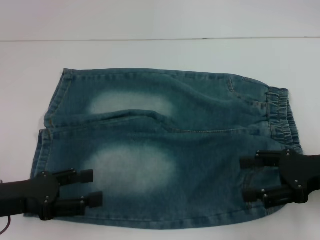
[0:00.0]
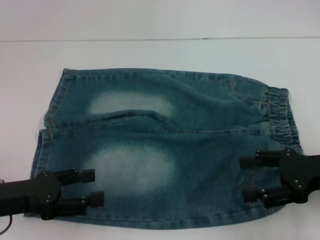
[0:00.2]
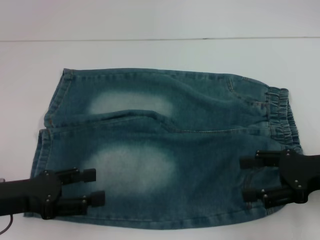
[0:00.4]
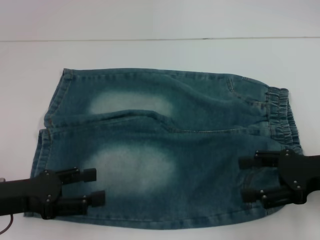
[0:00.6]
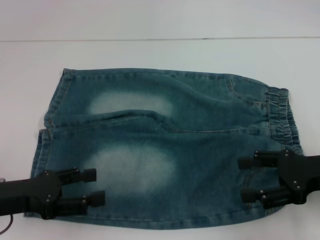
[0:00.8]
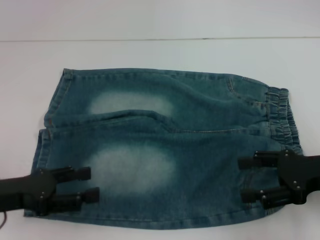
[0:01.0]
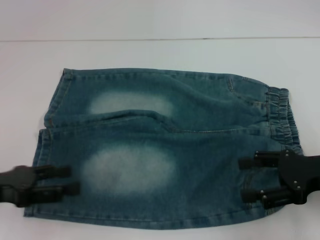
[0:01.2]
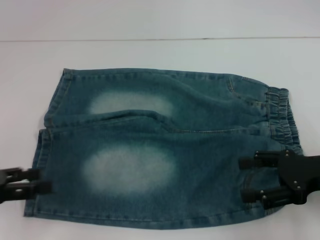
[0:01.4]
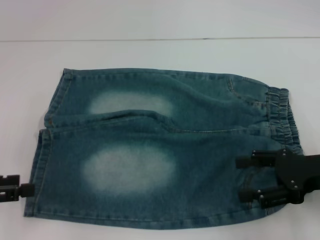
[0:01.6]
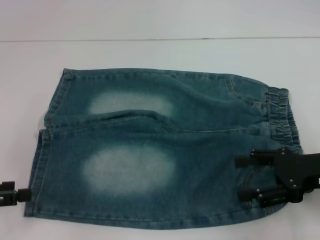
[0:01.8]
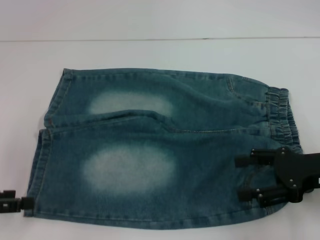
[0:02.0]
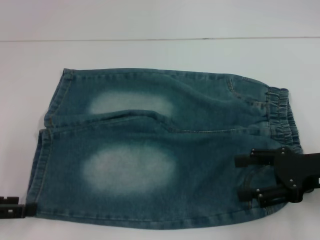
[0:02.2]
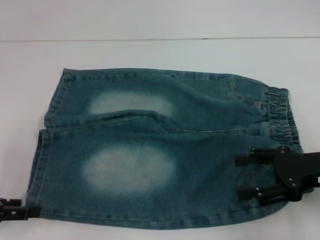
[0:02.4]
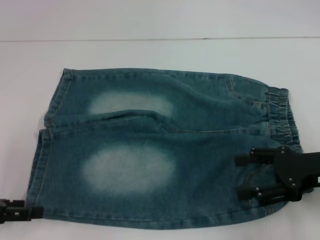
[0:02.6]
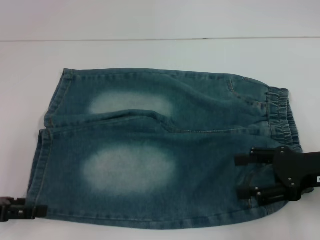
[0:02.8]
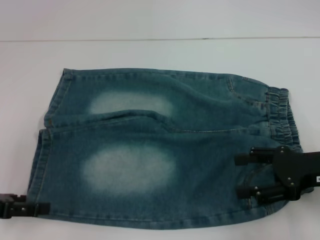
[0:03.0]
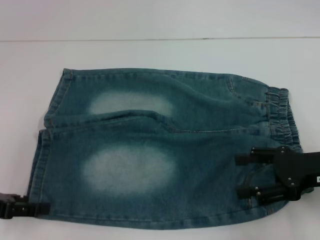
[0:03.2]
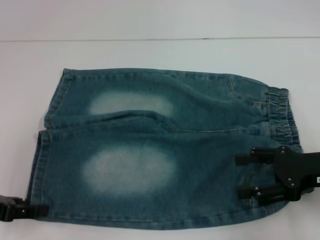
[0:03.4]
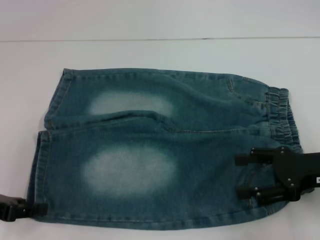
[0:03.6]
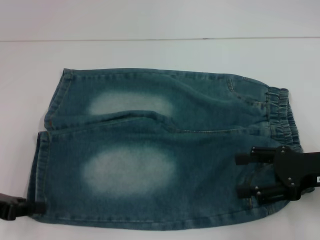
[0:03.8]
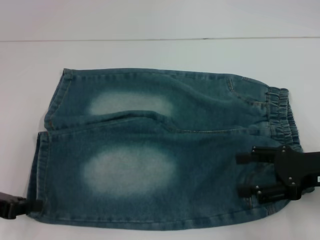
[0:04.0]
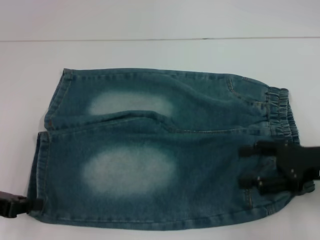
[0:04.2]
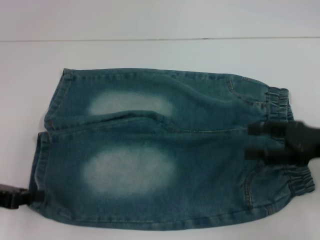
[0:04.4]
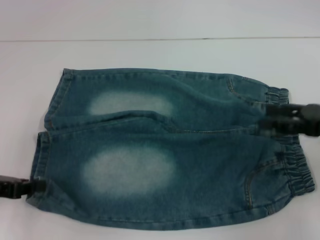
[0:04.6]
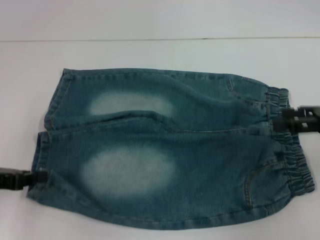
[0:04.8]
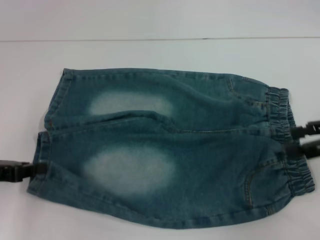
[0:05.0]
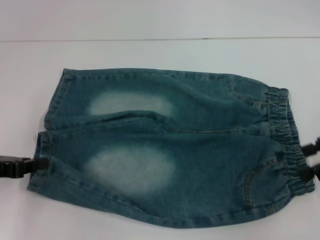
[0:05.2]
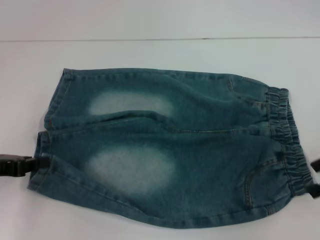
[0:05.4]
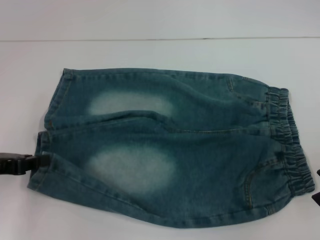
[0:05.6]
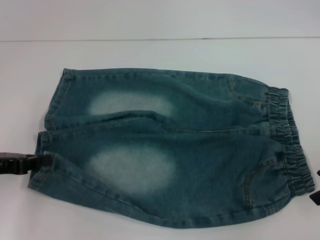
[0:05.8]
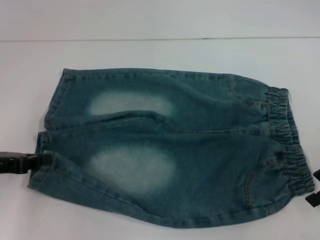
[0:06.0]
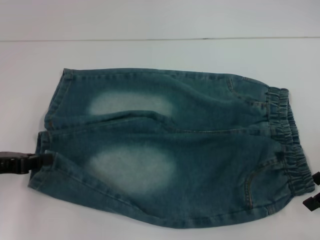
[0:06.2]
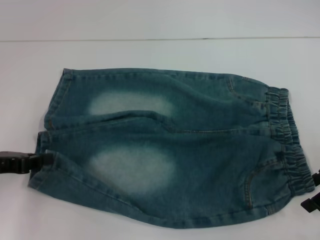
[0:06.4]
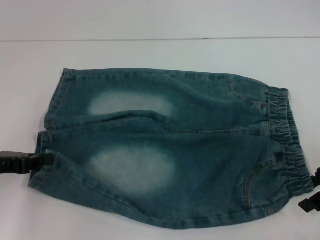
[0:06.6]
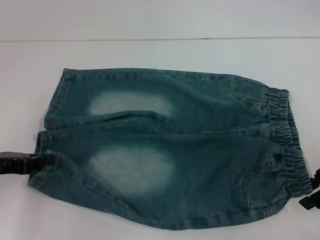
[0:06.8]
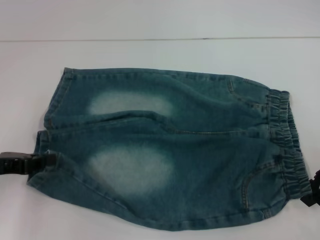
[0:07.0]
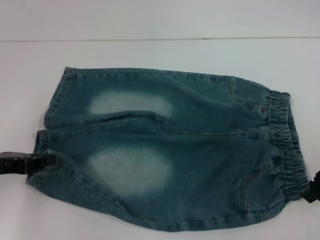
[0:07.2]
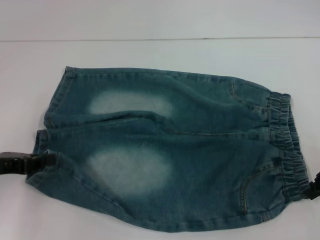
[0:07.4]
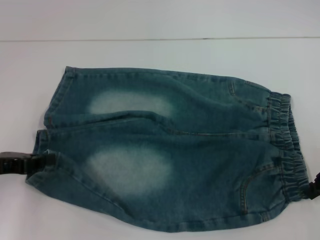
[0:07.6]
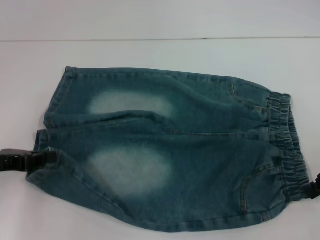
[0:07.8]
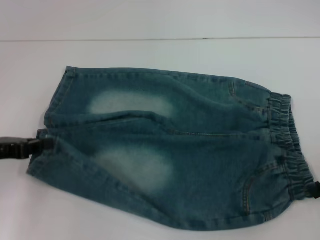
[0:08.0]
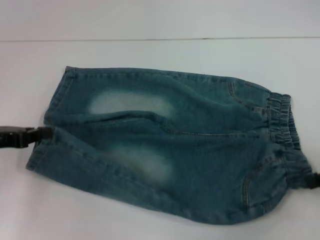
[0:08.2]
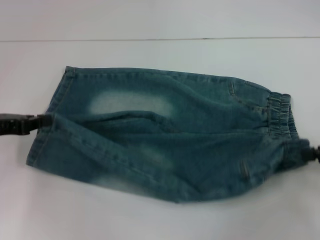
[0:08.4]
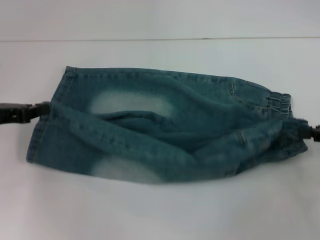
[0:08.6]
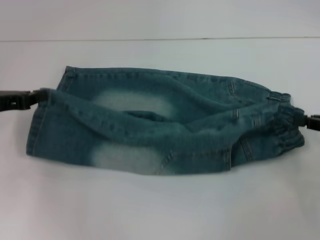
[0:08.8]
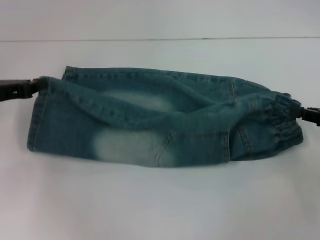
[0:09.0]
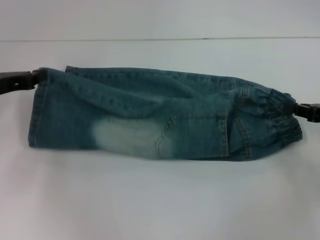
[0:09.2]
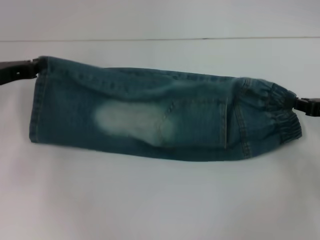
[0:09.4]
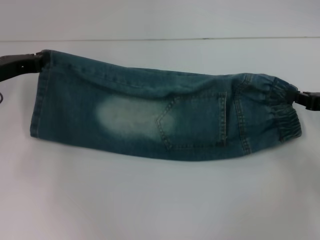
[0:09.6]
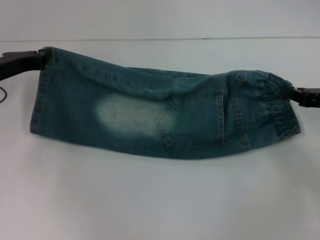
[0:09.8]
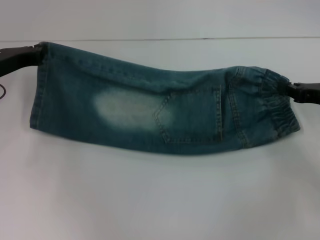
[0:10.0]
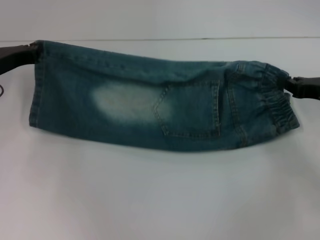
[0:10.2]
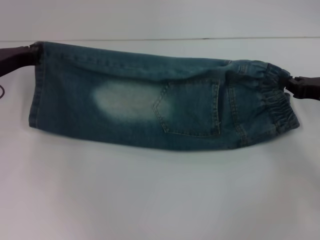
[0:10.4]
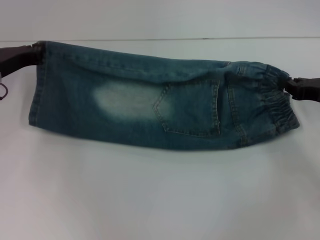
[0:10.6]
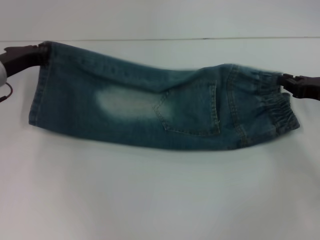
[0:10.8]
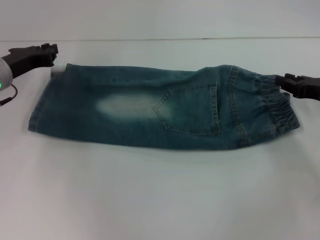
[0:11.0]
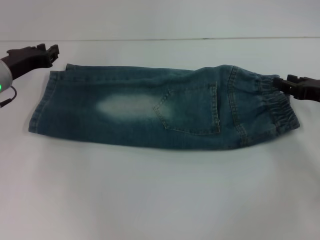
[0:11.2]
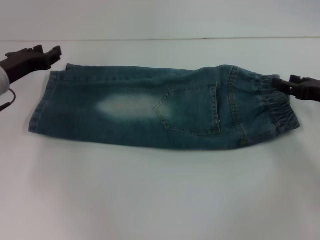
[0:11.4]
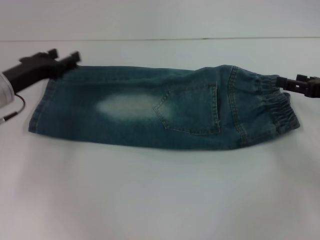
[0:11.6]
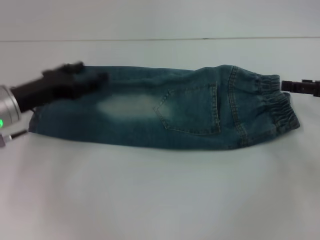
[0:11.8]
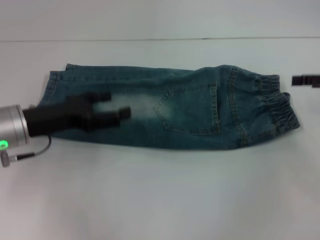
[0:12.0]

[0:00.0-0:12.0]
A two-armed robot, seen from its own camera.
Step, 0.0 to 3.6 s: Grab the lower left pant leg with your left hand.
Step, 4.0 to 7.8 s: Hold the lower right waistband with your right hand.
Step, 8.0 to 11.0 s: Fold upward with your right hand.
0.0 to 1.6 s: The left gripper goes roughly 5 cm to the left.
1.6 to 3.0 s: There are only small adjustments of the grippers.
3.0 to 4.4 s: The left gripper closes.
4.4 to 6.0 s: The right gripper moves some 5 cm.
6.0 to 7.6 s: The right gripper closes.
7.6 to 9.0 s: The right gripper changes place by approximately 5 cm. Meanwhile the left gripper goes some 10 cm forward.
9.0 to 10.4 s: The left gripper is displaced forward by roughly 5 cm. Meanwhile the right gripper moves some 5 cm.
10.4 to 12.0 s: The right gripper travels upward by some 5 cm, and opens up. The left gripper goes roughly 10 cm backward and to the right, and opens up.

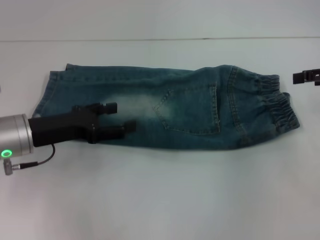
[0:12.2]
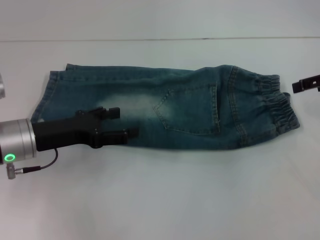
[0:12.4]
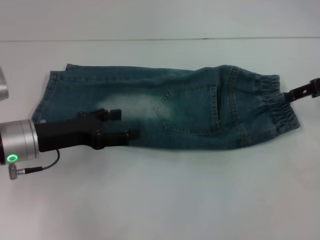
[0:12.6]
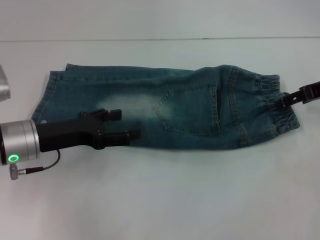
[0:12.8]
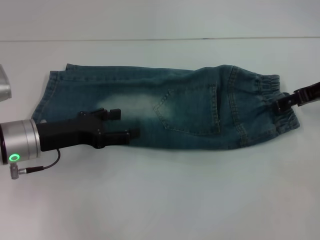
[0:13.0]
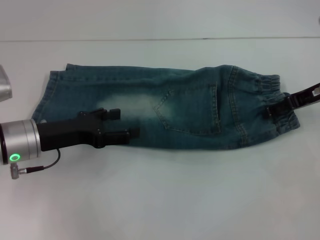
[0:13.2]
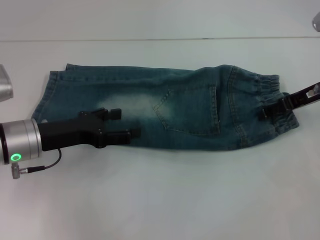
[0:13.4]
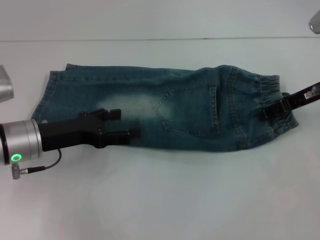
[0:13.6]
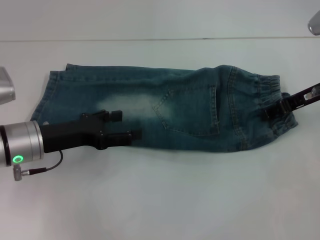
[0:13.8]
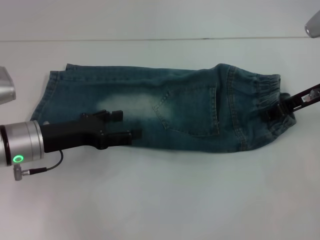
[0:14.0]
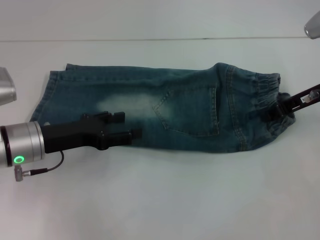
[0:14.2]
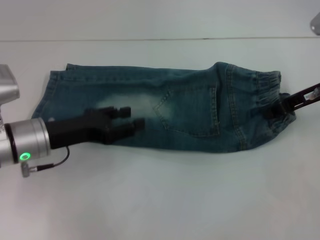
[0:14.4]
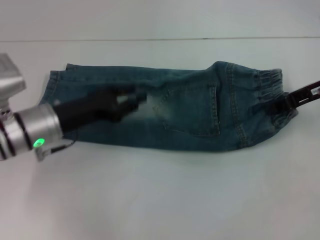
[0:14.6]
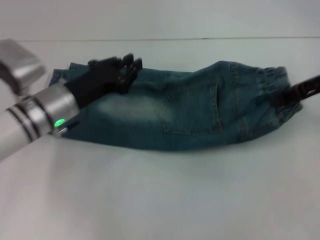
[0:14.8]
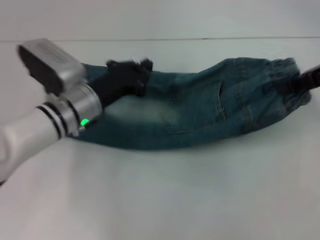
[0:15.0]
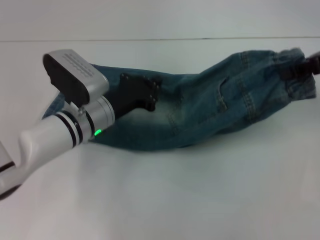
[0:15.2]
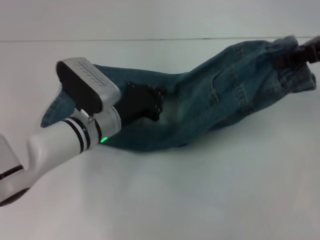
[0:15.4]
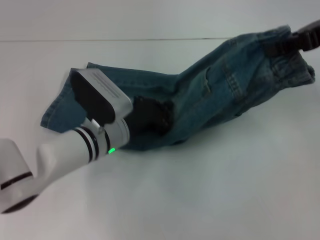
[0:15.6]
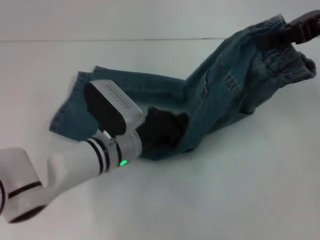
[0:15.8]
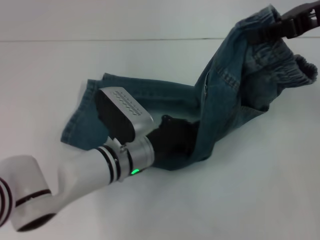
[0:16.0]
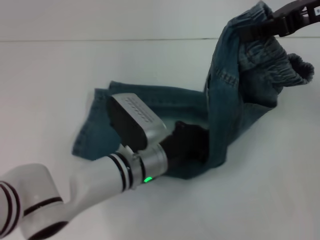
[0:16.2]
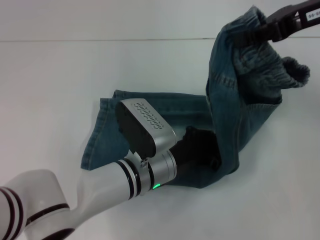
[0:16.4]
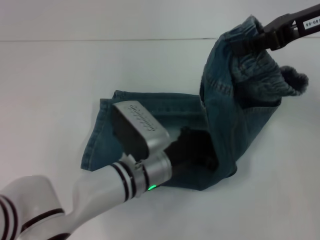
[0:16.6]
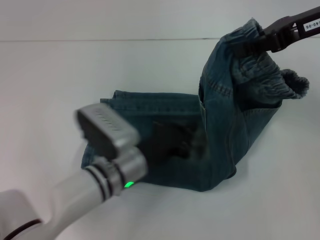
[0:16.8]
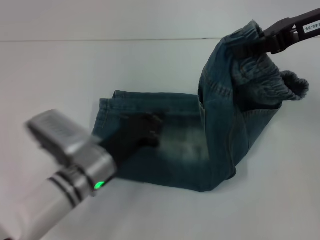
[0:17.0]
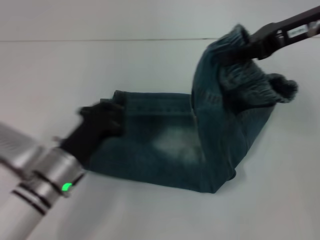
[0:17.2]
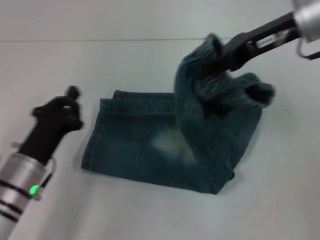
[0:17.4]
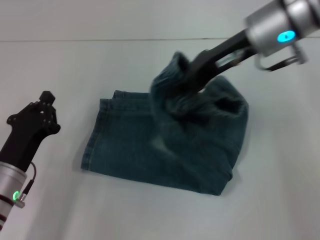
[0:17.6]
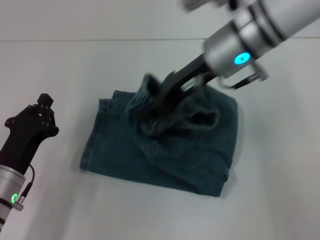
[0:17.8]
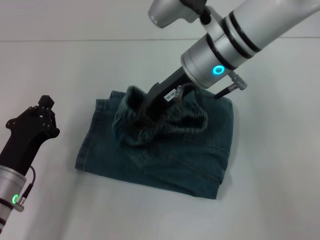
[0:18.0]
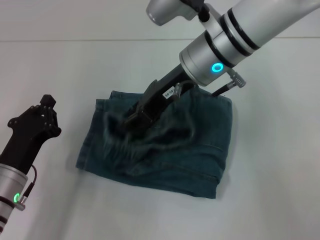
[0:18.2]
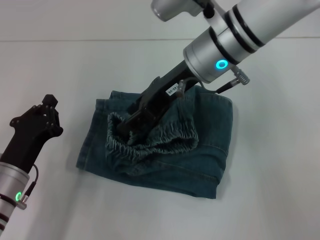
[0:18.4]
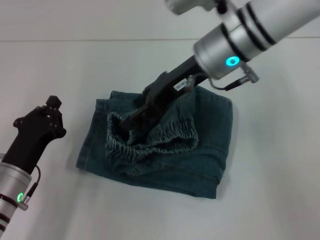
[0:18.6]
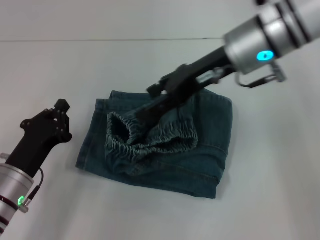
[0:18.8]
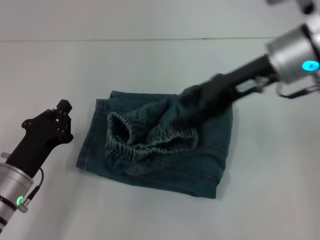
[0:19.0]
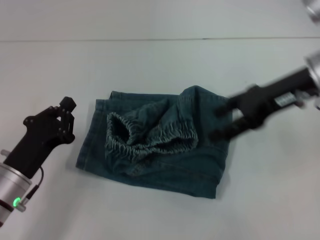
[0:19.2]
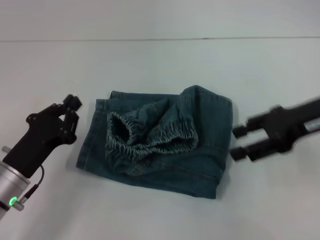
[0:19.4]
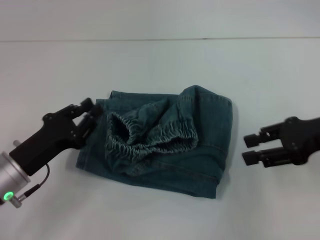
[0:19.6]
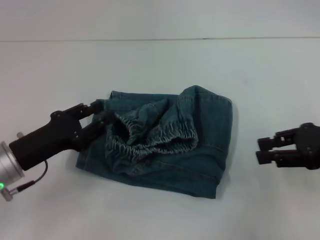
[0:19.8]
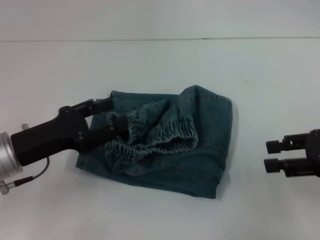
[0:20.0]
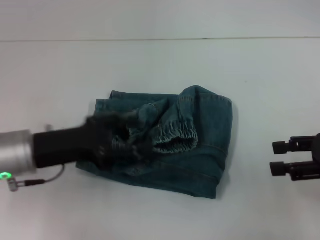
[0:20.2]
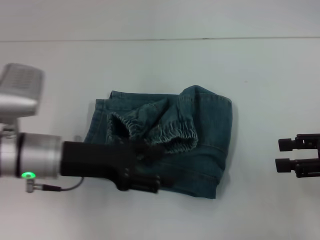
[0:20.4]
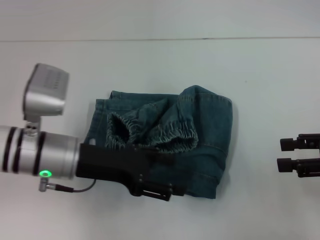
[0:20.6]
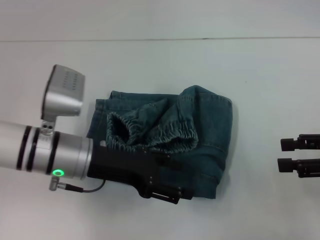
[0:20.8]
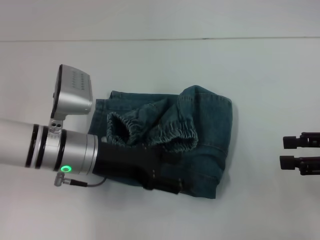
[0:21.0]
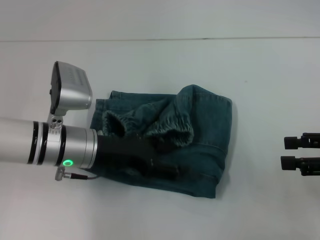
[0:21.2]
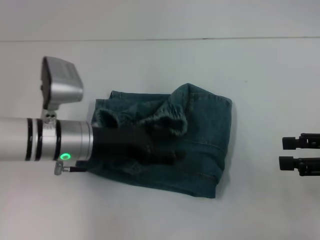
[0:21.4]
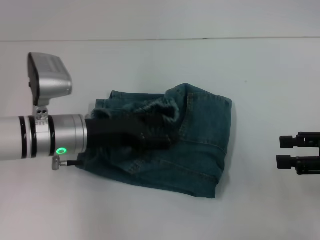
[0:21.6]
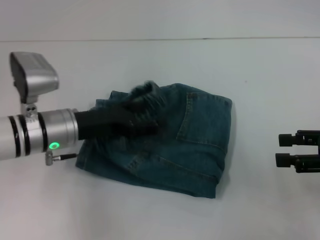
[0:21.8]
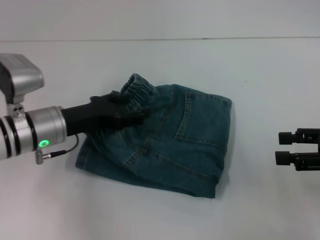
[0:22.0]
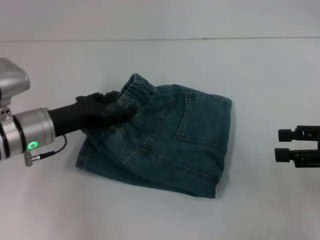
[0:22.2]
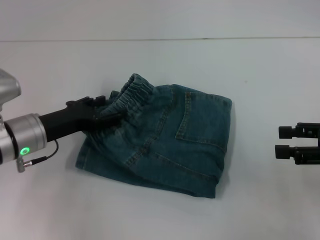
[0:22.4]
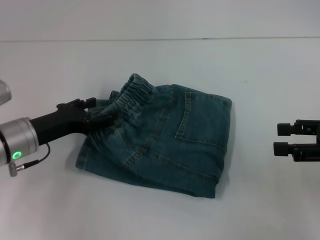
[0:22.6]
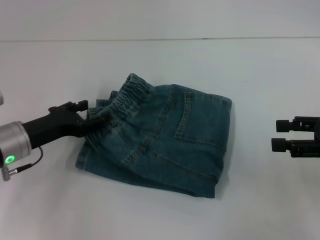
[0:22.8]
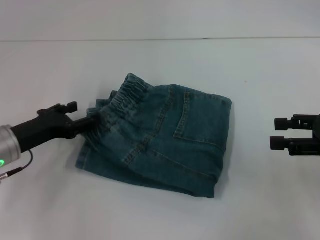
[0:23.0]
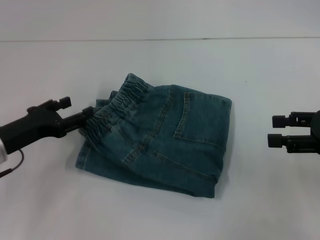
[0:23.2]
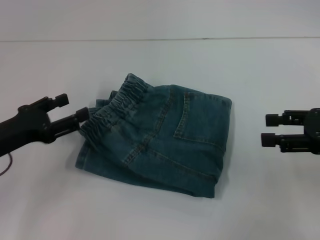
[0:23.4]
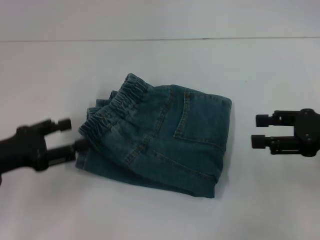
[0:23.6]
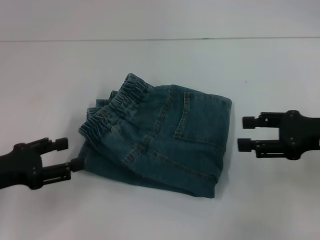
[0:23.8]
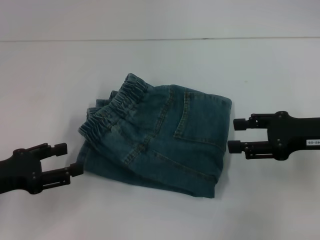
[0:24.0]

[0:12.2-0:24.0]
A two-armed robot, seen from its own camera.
Step, 12.2 to 13.4 s: Grab the waistband with your right hand.
Step, 13.6 to 16.6 s: Press the middle of the pants with your left hand.
Step, 16.8 to 18.4 s: Fold to the left with your right hand.
Step, 18.6 to 22.4 s: Adjust the pants with your left hand.
12.2 to 13.6 s: The right gripper shifts about 10 cm to the left.
13.6 to 15.2 s: The right gripper heads upward, covering some 10 cm, and closes. The left gripper travels to the right by some 10 cm, and closes its fingers.
15.2 to 16.6 s: The left gripper shifts roughly 10 cm to the right and backward. The right gripper shifts roughly 5 cm to the left.
16.6 to 18.2 s: Both grippers move to the left, about 20 cm.
18.2 to 19.6 s: The right gripper heads to the right, covering approximately 20 cm, and opens.
19.6 to 21.0 s: The right gripper is displaced to the right by some 5 cm. The left gripper is displaced to the right, forward and upward by roughly 10 cm, and opens its fingers.
21.0 to 22.6 s: The left gripper moves to the left, some 10 cm.
22.6 to 24.0 s: The right gripper heads to the left, covering roughly 5 cm, while the left gripper is displaced backward and to the left by approximately 10 cm.
